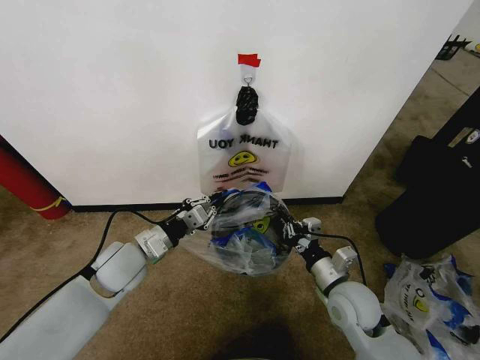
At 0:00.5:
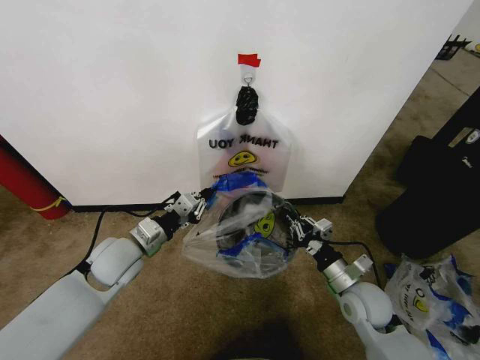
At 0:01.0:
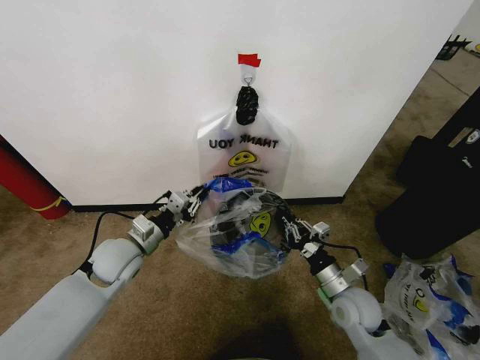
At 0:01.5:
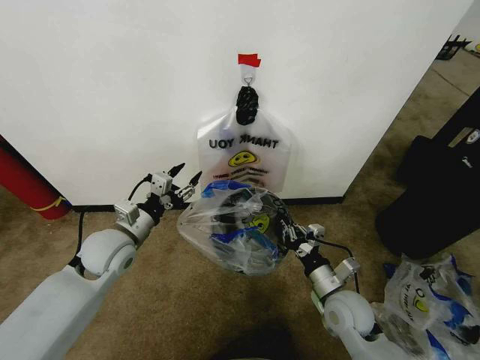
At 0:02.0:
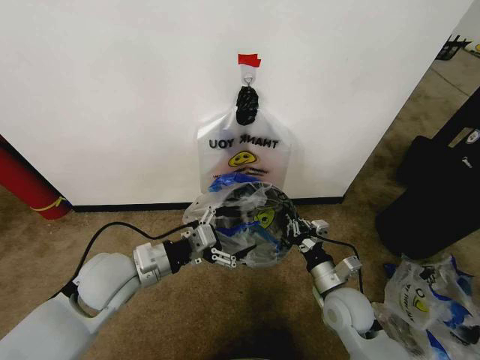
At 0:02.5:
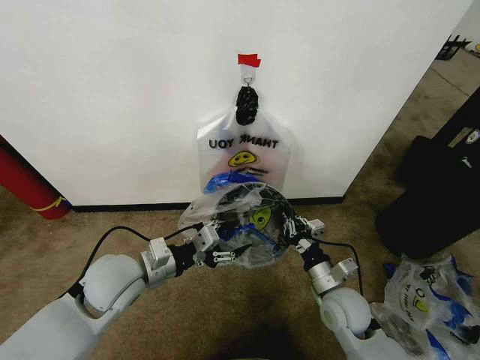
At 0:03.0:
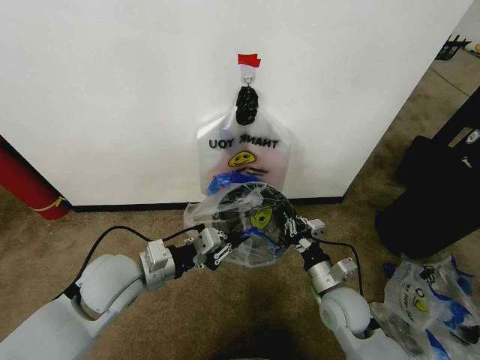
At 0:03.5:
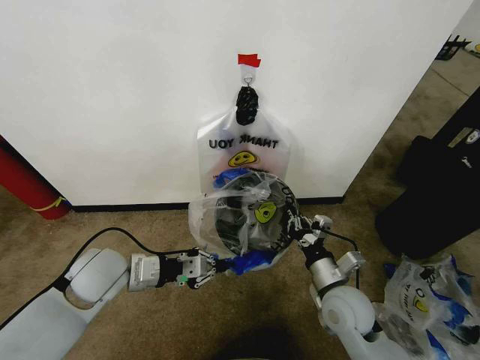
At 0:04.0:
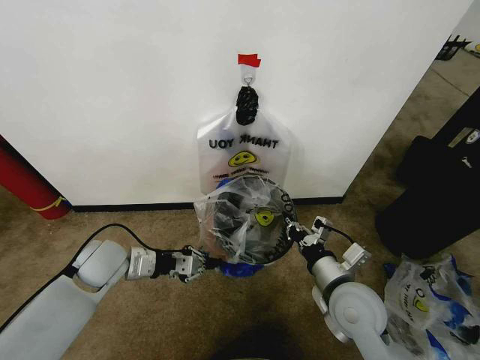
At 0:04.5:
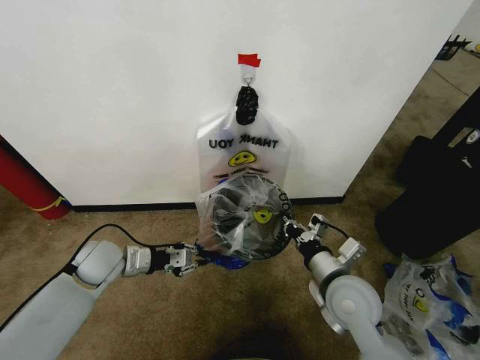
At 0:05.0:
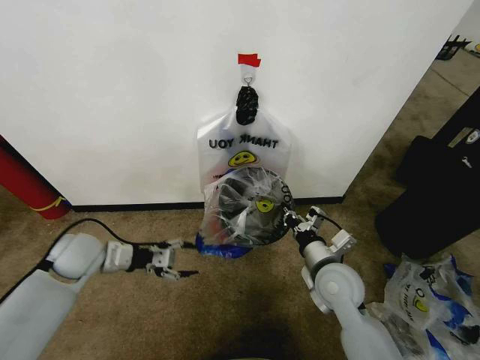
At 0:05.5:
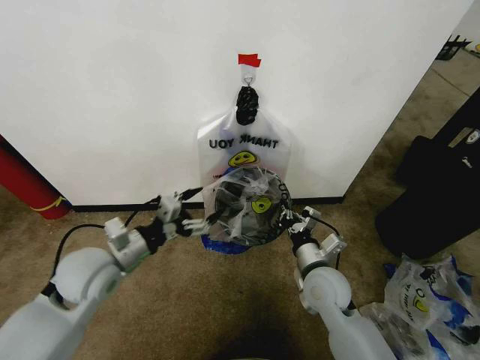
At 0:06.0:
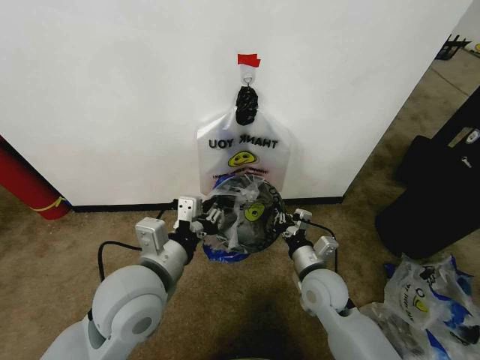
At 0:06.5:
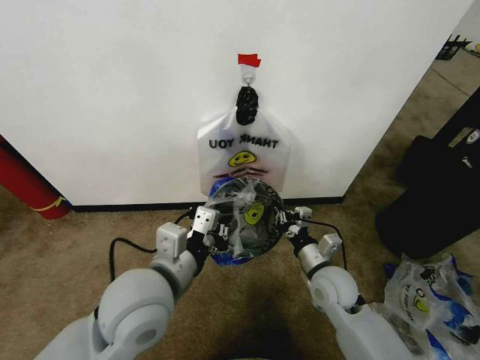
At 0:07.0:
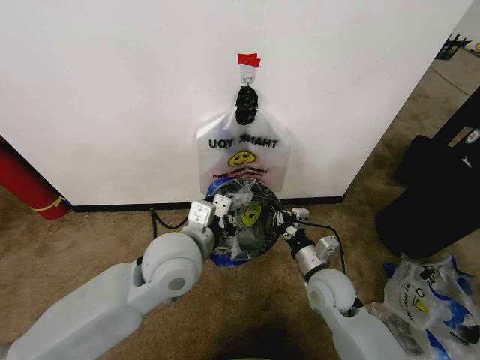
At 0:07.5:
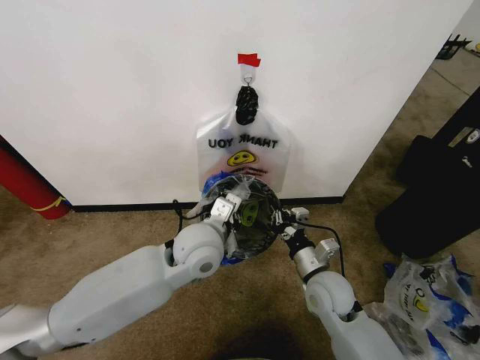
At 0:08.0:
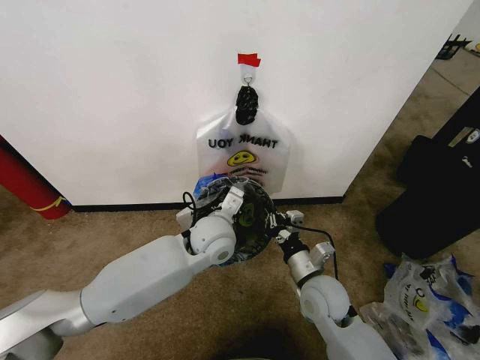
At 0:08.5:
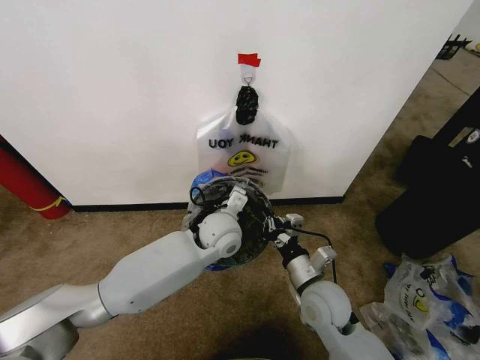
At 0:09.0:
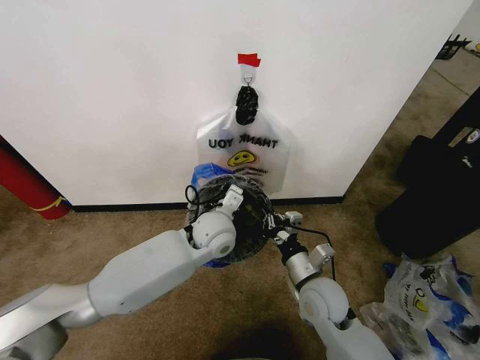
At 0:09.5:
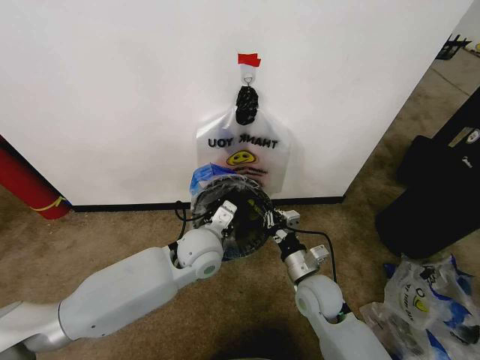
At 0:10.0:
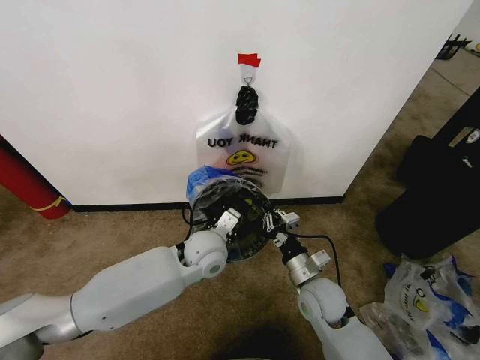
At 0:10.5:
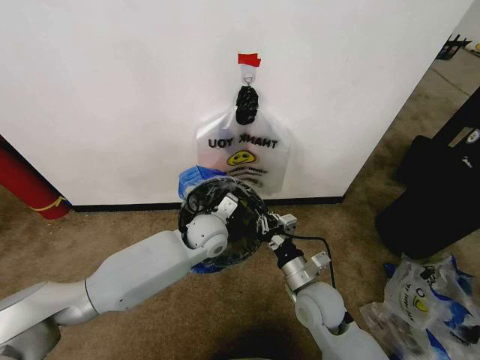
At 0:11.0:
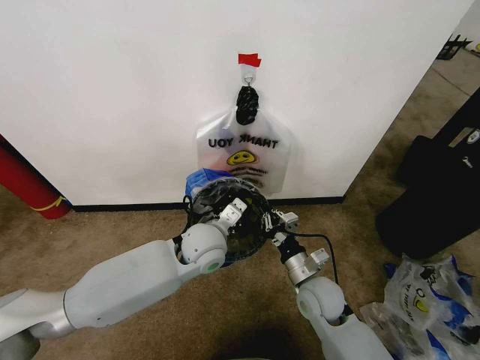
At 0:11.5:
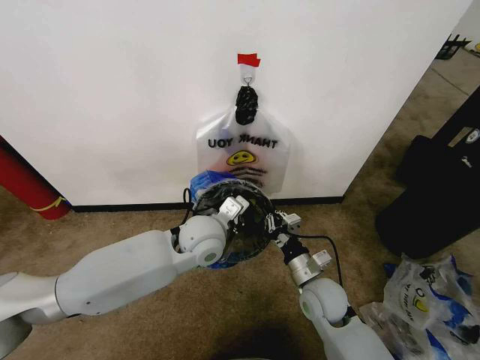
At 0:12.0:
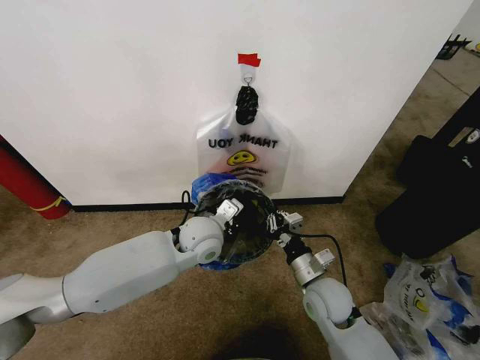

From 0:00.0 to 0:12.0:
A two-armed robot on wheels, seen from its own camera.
Task of the whole recording: Pick up the garbage bag from the wall and place it over the trash bin.
From 0:00.0 to 0:02.0: The left gripper shifts by approximately 5 cm, and opens up.
From 0:02.0 to 0:04.0: The left gripper heads to the left and forward, covering some 10 cm, and closes up. Meanwhile the right gripper is displaced upward by some 10 cm.
From 0:04.0 to 0:06.0: The left gripper shifts some 20 cm to the right, backward and upward, and opens up. The right gripper moves downward and forward, some 10 cm.
From 0:06.0 to 0:08.0: The left gripper heads forward, to the right and downward, covering some 20 cm, and closes its fingers.
From 0:08.0 to 0:12.0: There are only small adjustments of the grippers.

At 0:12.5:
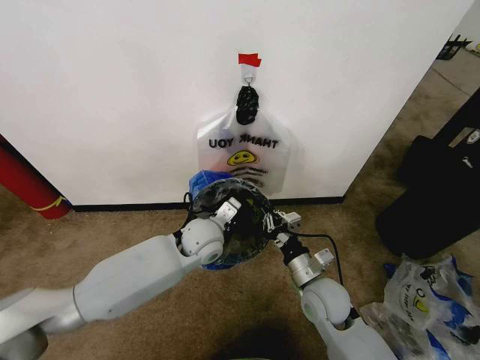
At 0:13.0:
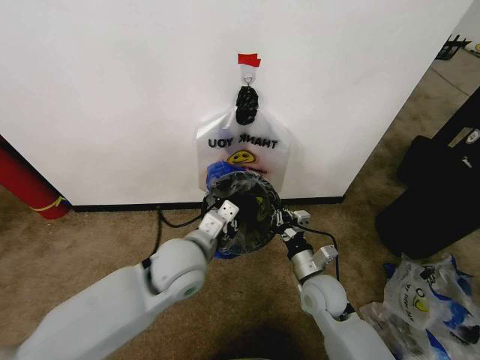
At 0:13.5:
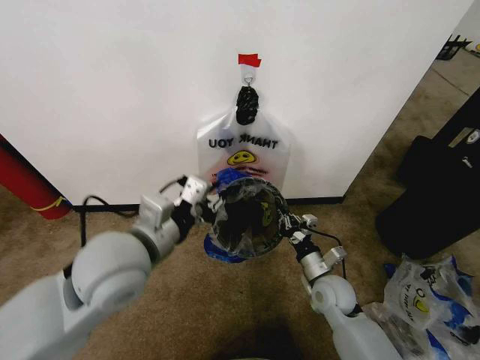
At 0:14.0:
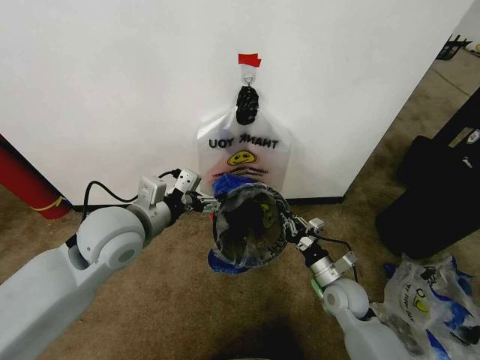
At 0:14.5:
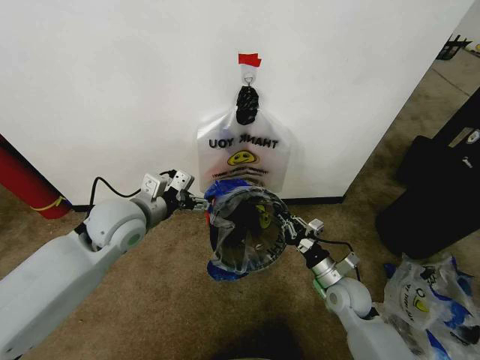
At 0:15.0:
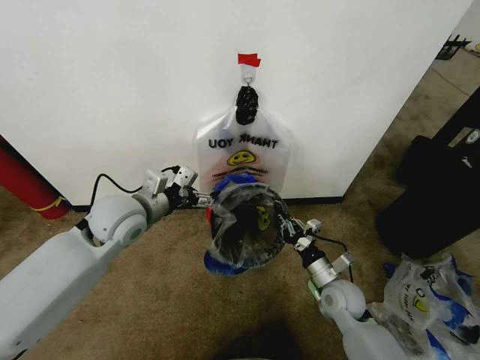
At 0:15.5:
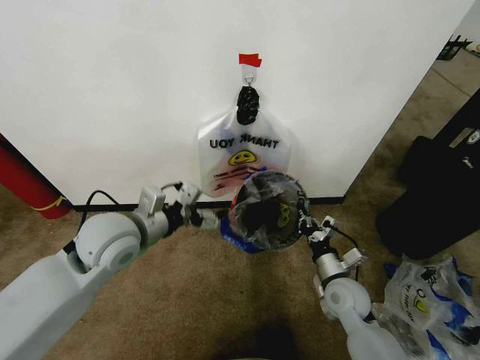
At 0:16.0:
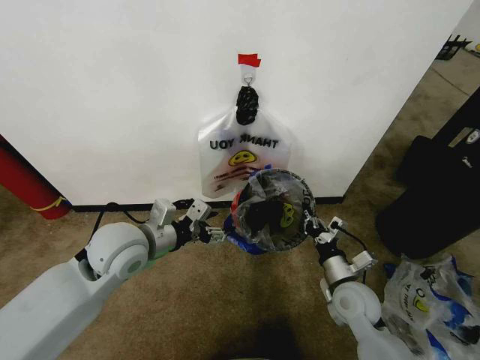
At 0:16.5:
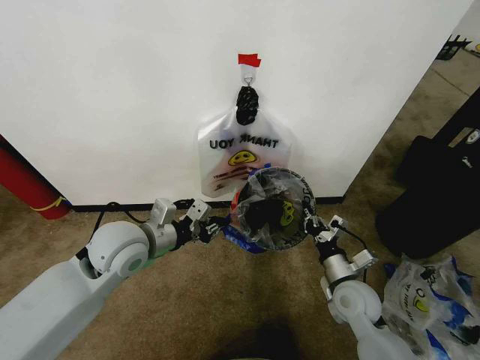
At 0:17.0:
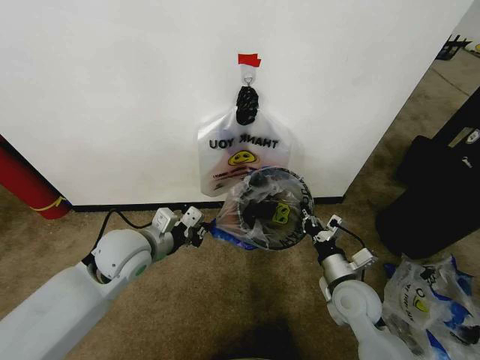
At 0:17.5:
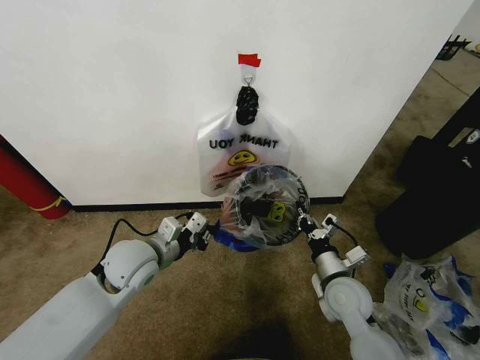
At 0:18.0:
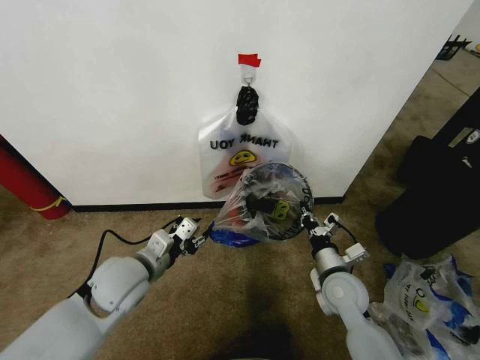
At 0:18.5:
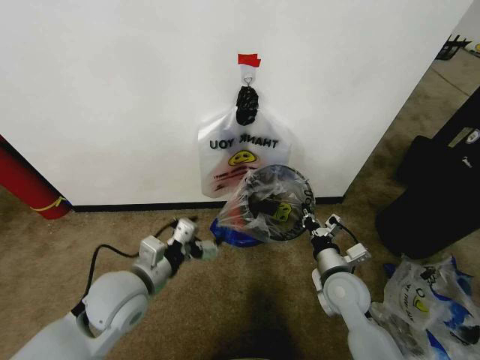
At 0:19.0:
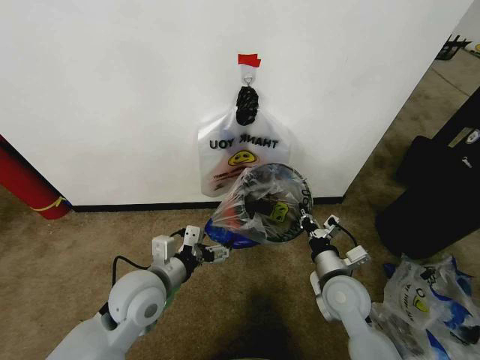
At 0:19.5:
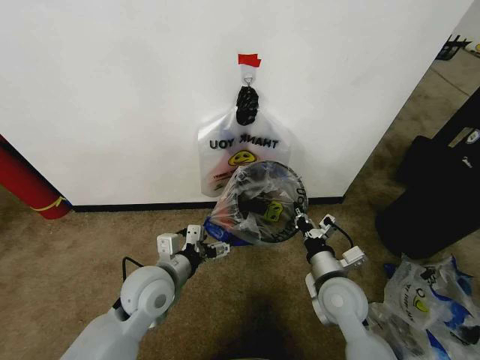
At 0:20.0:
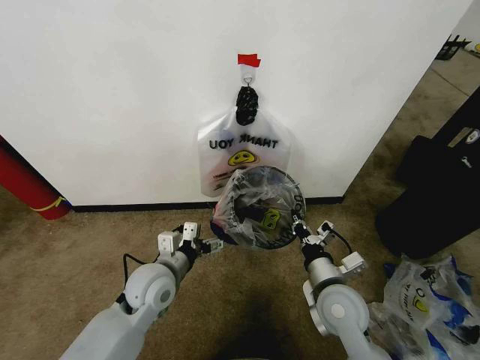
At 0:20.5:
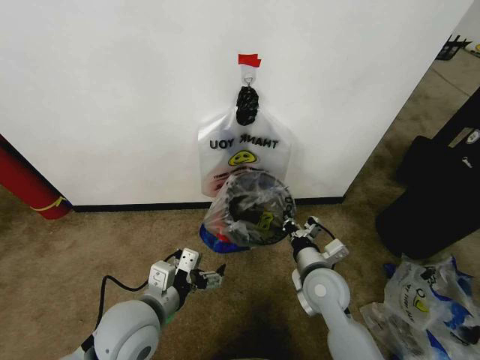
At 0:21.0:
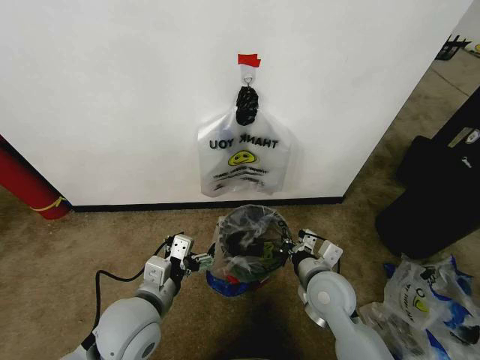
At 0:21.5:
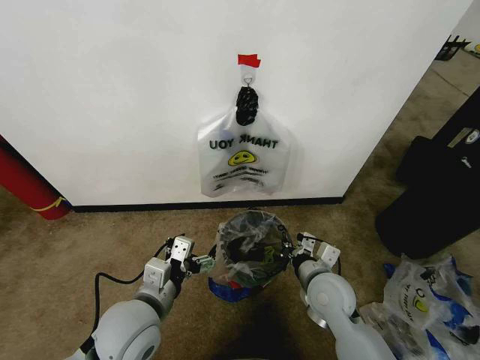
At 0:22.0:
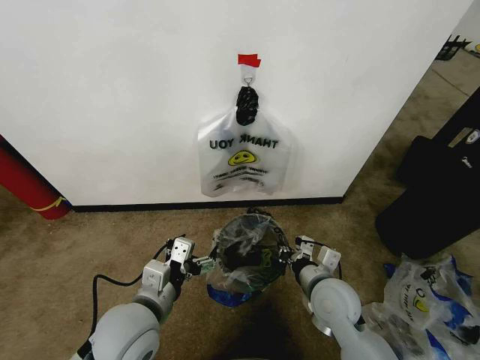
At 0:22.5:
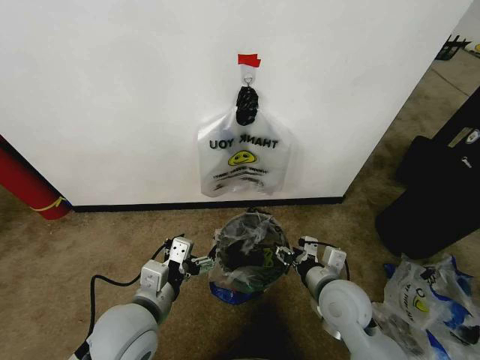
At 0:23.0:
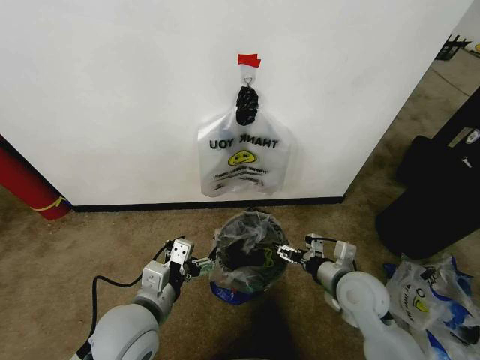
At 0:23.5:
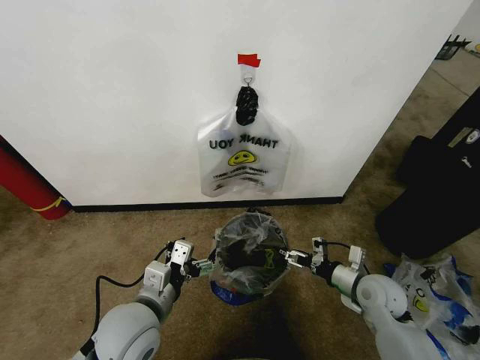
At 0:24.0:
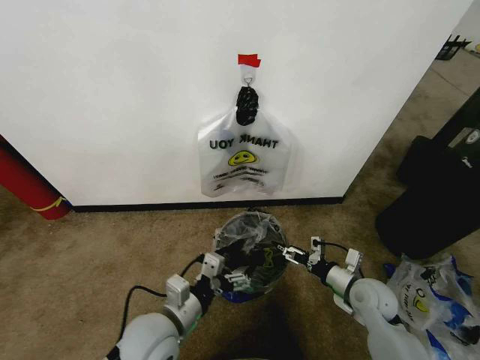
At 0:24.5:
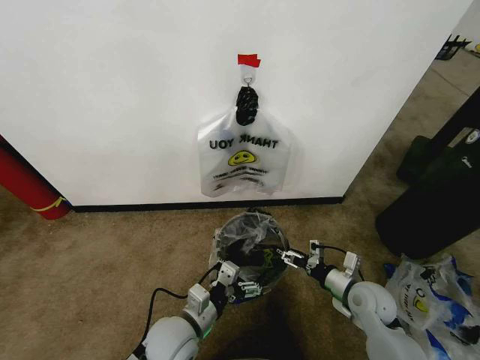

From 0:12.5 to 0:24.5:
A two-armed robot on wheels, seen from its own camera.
Task of the whole recording: Pick up the garbage bag from the wall and place it over the trash bin.
From 0:12.5 to 0:14.5: The left gripper goes approximately 20 cm to the left and upward, and opens up. The right gripper heads to the right and downward, covering some 10 cm.
From 0:14.5 to 0:16.5: The left gripper closes its fingers.
From 0:16.5 to 0:18.5: The left gripper moves backward and downward, roughly 10 cm, and opens its fingers.
From 0:18.5 to 0:20.5: The right gripper shifts by roughly 5 cm. The left gripper changes place by roughly 5 cm.
From 0:20.5 to 0:22.5: The right gripper opens its fingers.
From 0:22.5 to 0:24.5: The right gripper goes about 10 cm to the right and downward, and opens up. The left gripper is displaced downward and to the right by some 10 cm.

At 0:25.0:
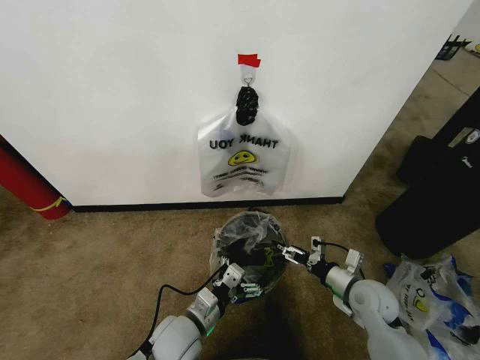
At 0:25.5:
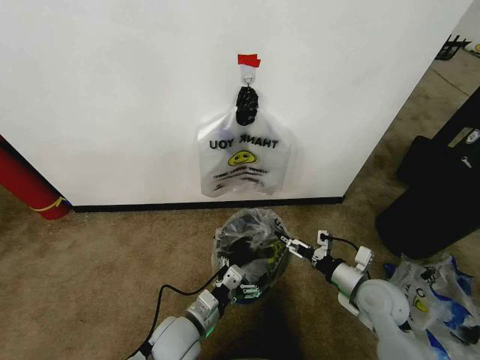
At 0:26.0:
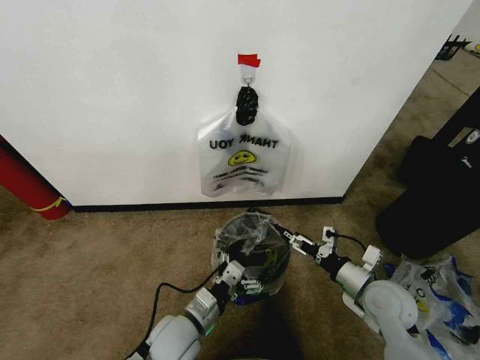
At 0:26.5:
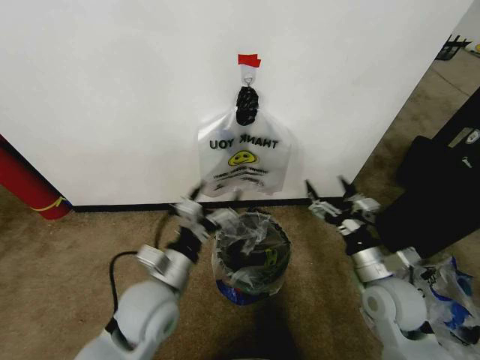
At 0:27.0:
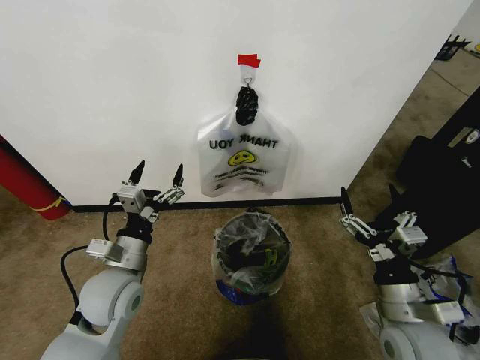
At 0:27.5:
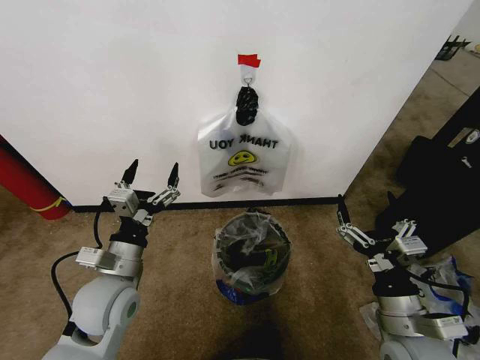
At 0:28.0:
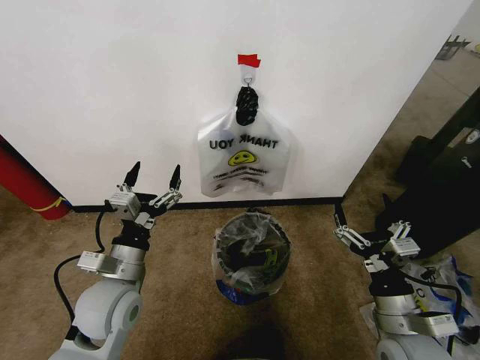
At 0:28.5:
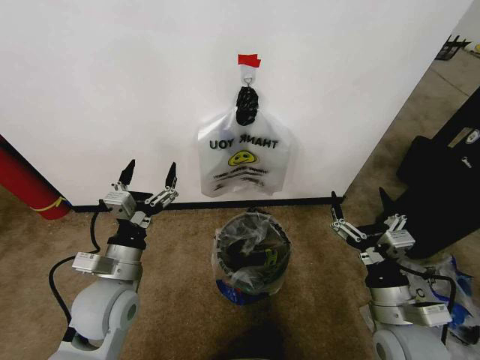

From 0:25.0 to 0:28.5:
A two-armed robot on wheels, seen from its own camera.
Task of the whole recording: Pick up the garbage bag from the wall and place it over the trash bin.
From 0:25.0 to 0:27.0: The left gripper goes approximately 15 cm upward and to the left; the right gripper goes some 15 cm backward and upward.
From 0:27.0 to 0:28.5: The grippers make only small movements.
